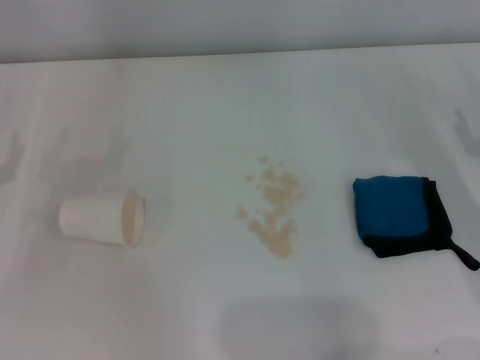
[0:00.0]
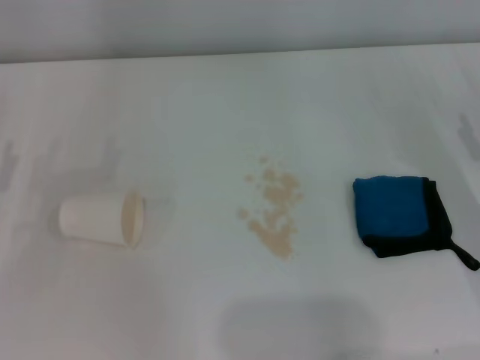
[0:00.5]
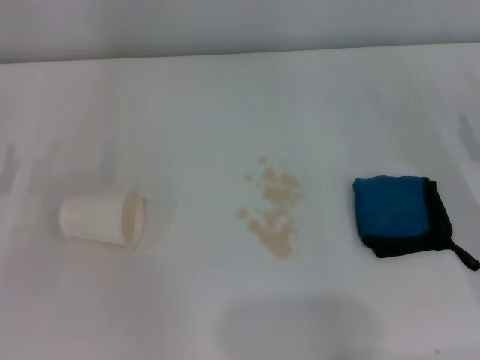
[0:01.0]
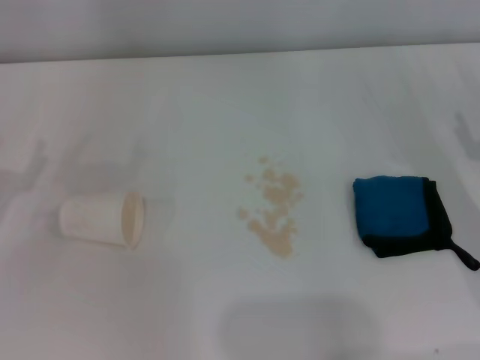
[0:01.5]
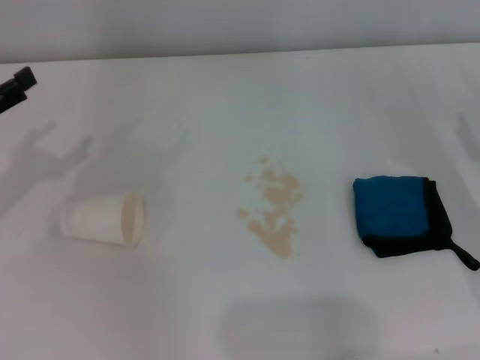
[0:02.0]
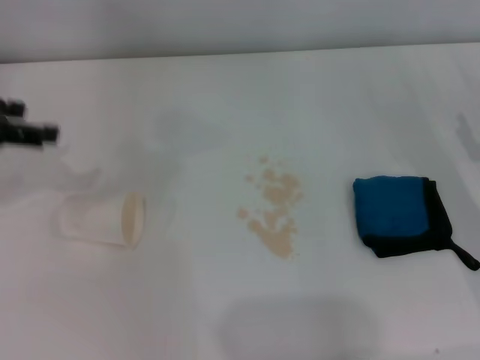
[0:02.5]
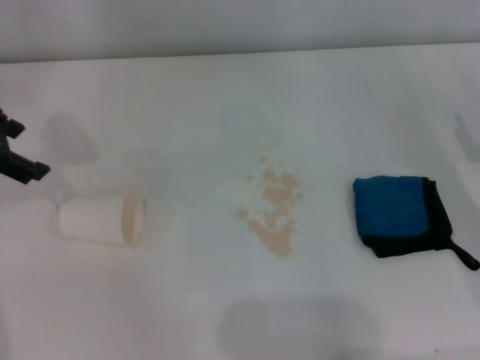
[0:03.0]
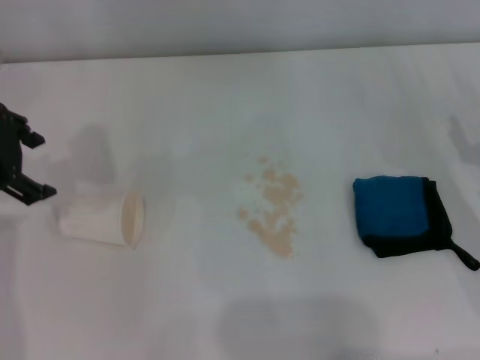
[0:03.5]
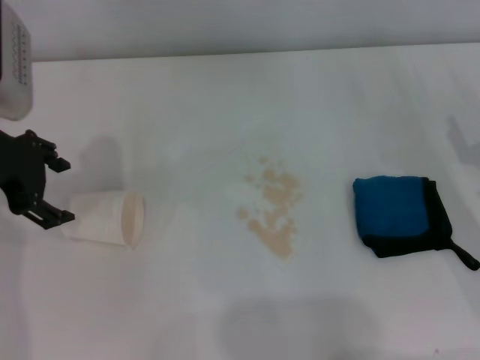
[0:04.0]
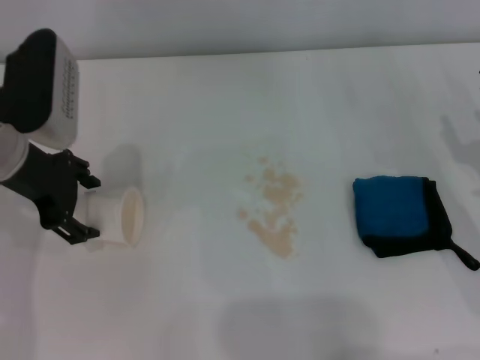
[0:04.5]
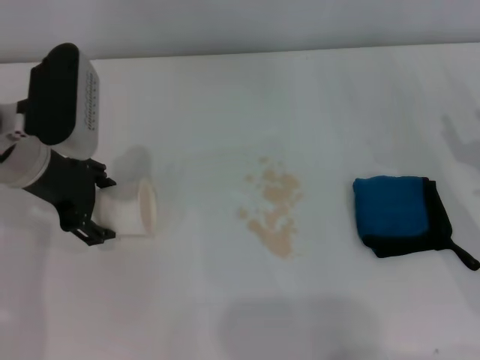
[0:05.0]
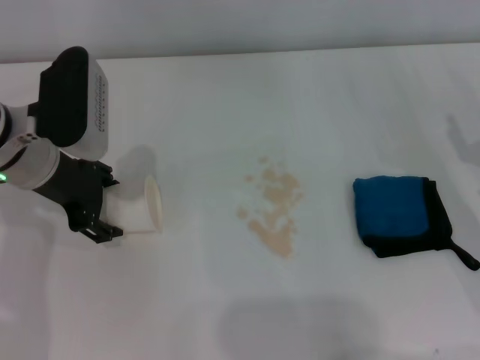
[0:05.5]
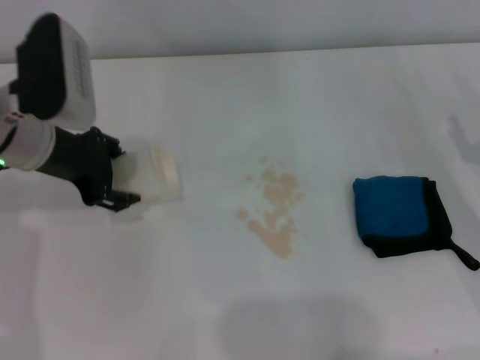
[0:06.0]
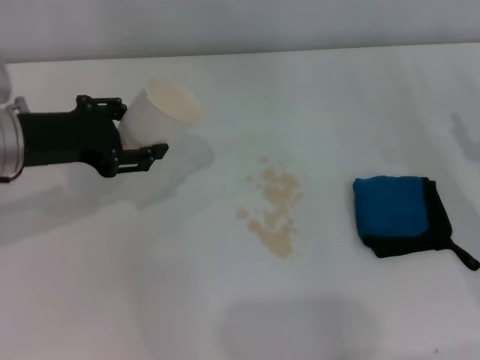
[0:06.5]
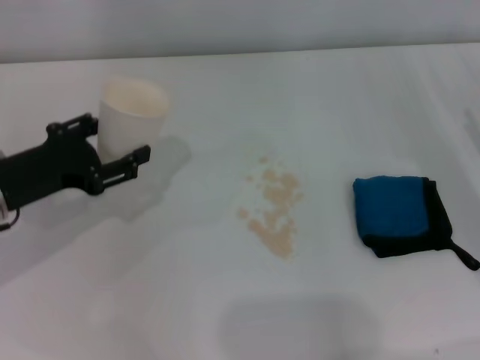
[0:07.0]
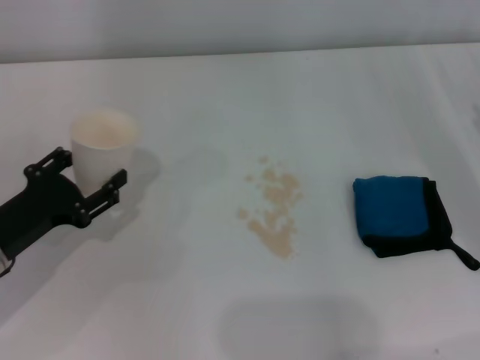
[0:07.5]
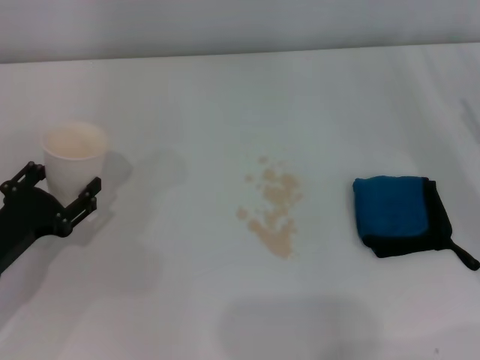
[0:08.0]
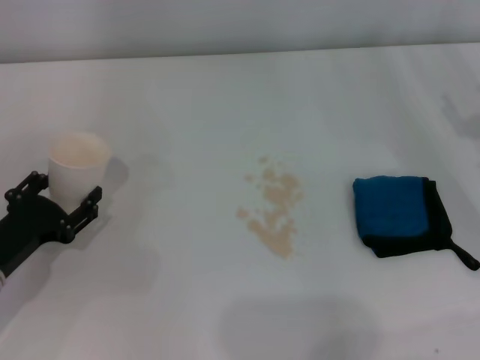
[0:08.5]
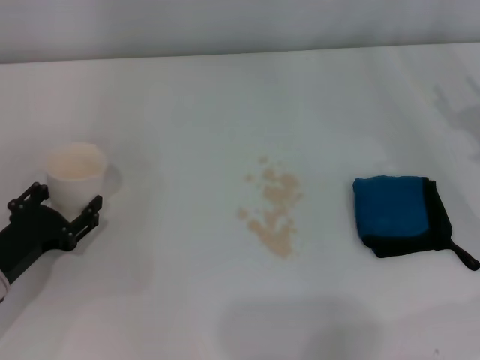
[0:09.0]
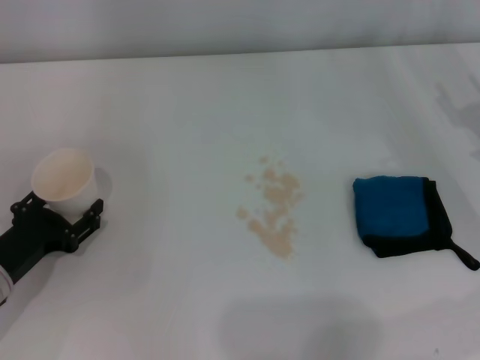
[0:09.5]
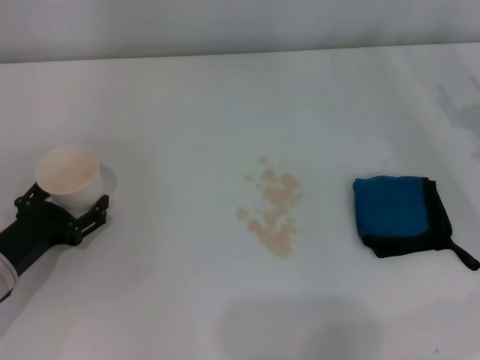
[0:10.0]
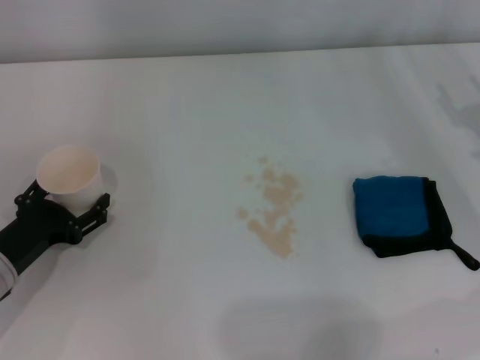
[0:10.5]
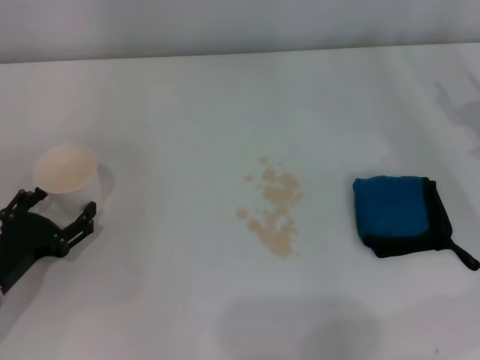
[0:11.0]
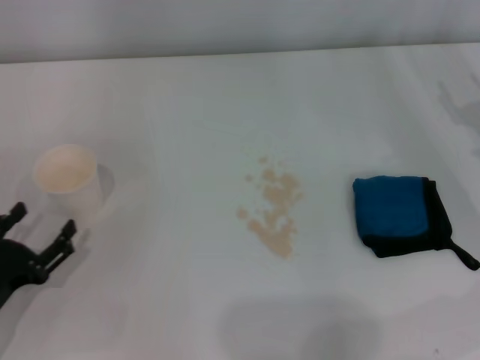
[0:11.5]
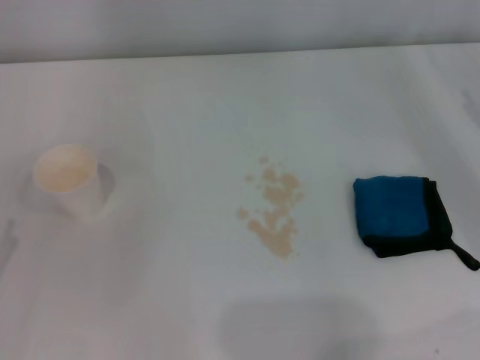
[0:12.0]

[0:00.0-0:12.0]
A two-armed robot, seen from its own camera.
Step, 0.0 to 5.0 s: Grasp the paper cup with the left gripper.
Step, 5.5 to 10.0 s: Stand the paper cup upright with the left gripper.
2.0 to 4.0 s: The left gripper moves to the right and upward, roughly 10 cm.
4.0 to 6.0 s: The left gripper ends up approximately 5 cm from where it was, and closes up.
6.0 to 8.0 s: The left gripper heads downward, backward and to the left, covering about 20 cm.
8.0 to 10.0 s: The grippers stay close to where they were, moving slightly.
10.0 to 12.0 s: The left gripper moves backward and to the left, approximately 10 cm, and opens its fingers.

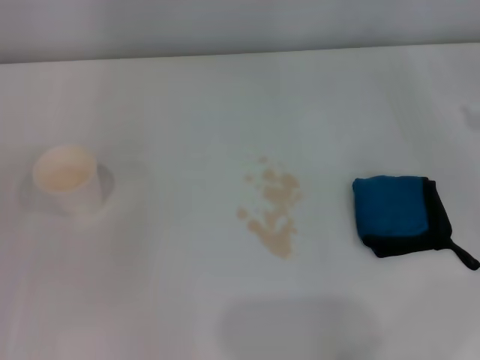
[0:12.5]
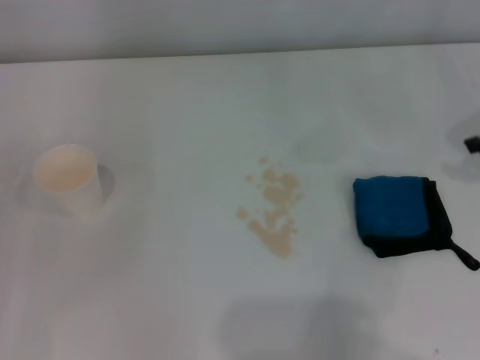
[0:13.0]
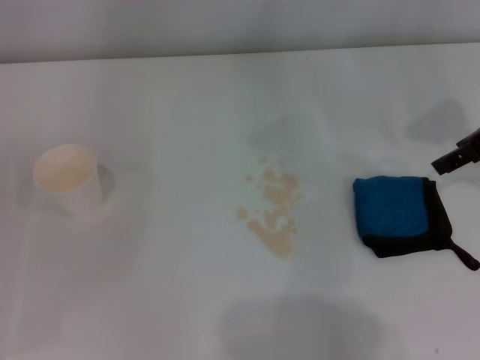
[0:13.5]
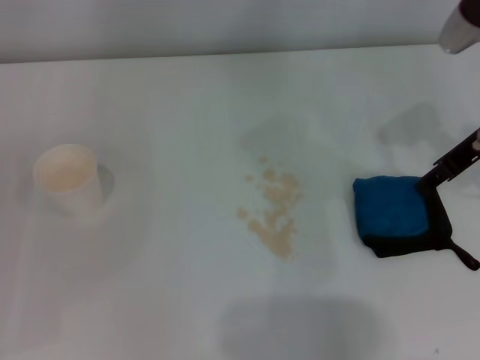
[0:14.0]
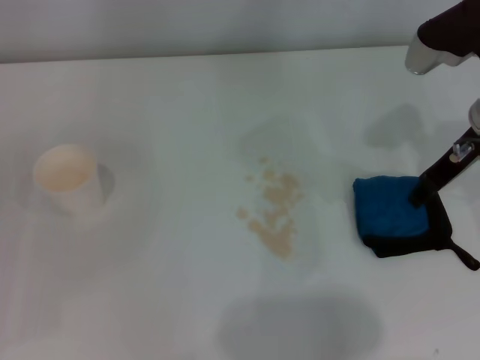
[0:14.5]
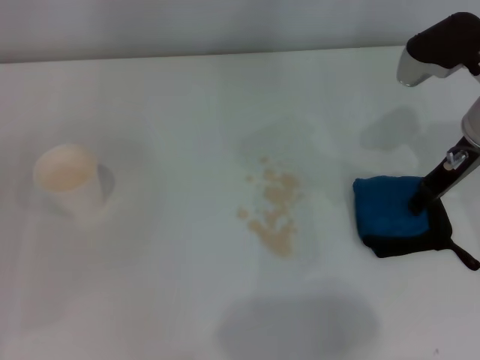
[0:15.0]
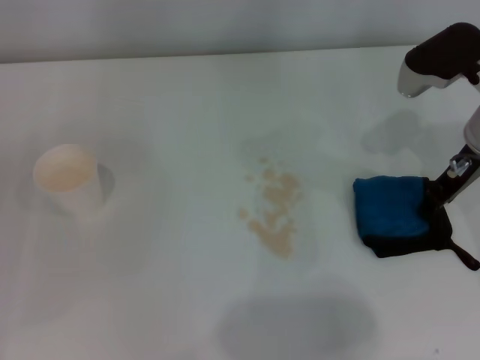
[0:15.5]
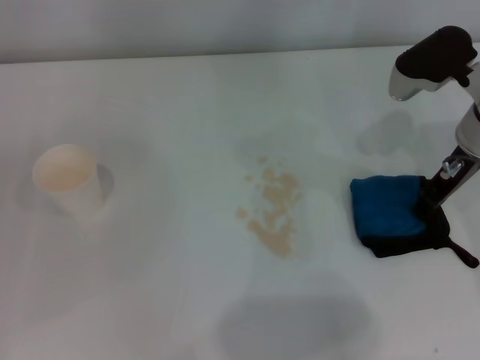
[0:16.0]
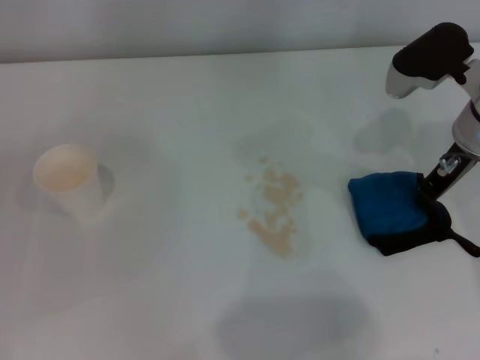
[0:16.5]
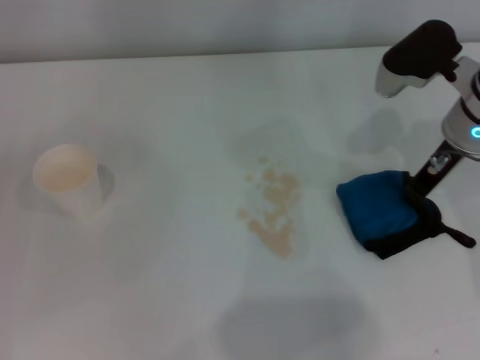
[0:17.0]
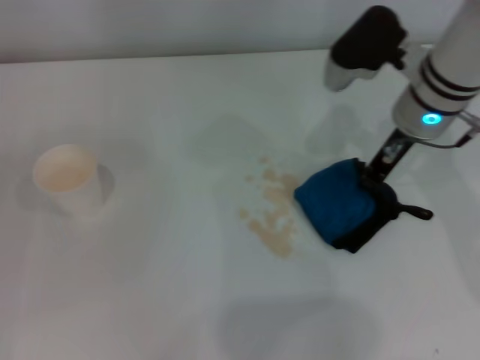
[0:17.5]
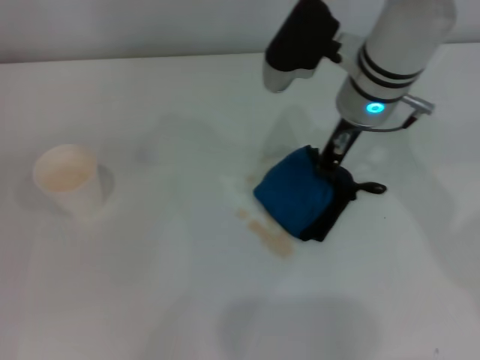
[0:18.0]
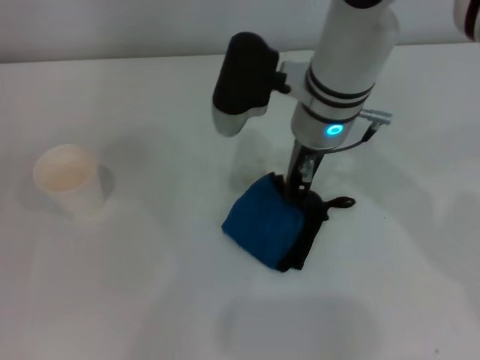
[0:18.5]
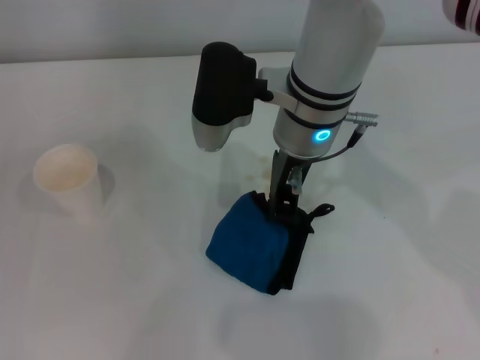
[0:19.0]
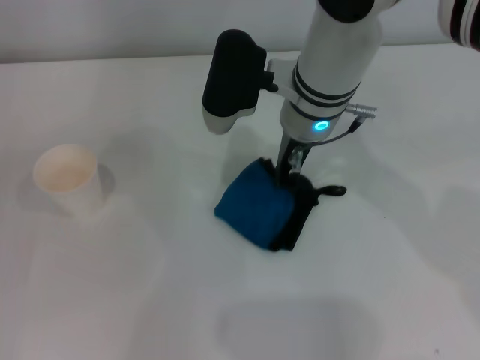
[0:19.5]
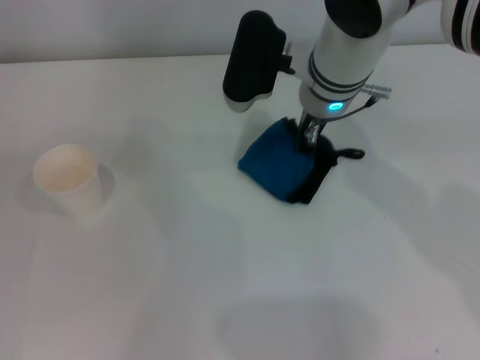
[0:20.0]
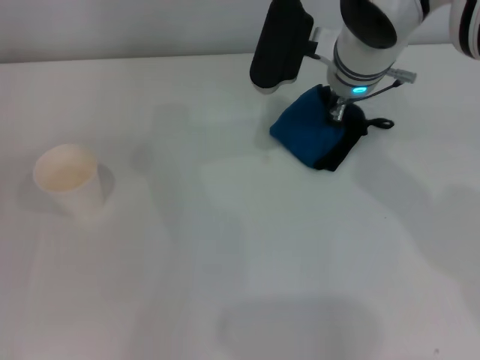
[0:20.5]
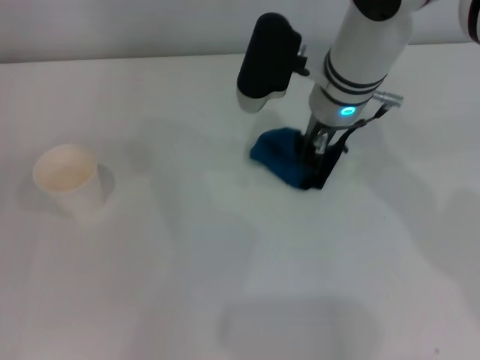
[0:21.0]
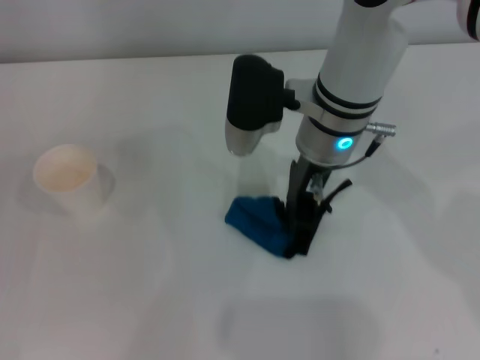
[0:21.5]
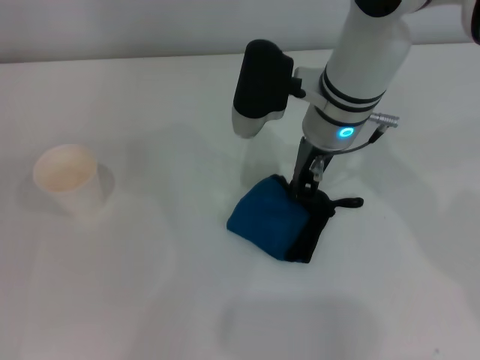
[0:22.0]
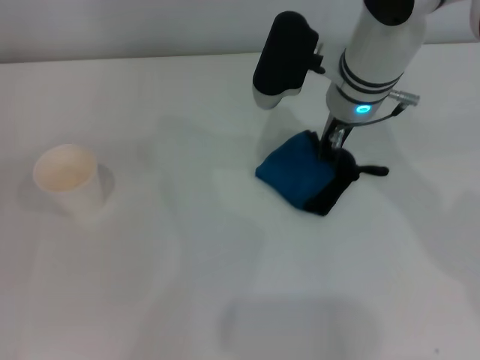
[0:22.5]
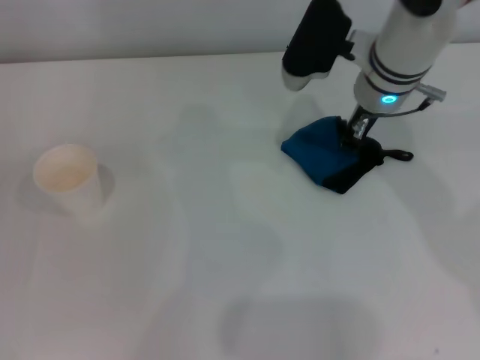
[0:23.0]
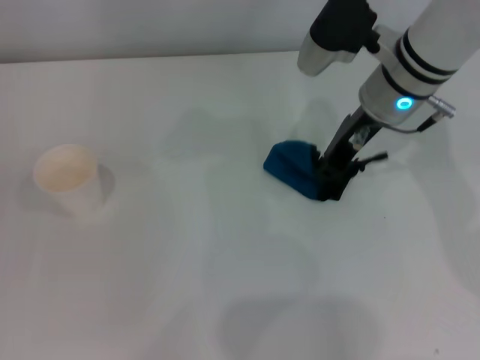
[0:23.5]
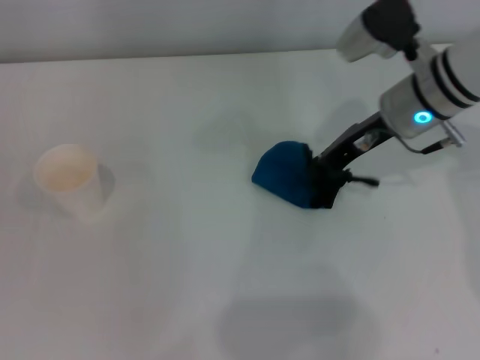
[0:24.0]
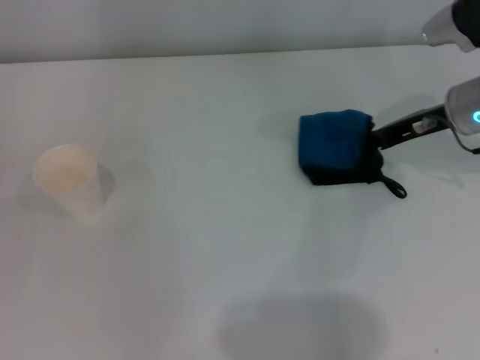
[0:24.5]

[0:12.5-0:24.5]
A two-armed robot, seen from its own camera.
Step, 12.5 to 16.5 s: Grasp the rag with the right gripper.
Step, 17.0 to 22.5 s: Wipe the stains off the table with the right gripper.
12.5 to 14.5 s: The right gripper shifts approximately 15 cm to the left.
14.5 to 16.5 s: The right gripper closes its fingers.
16.5 to 18.5 s: The right gripper heads to the left, covering approximately 15 cm.
18.5 to 20.5 s: The right gripper shifts some 5 cm forward.
22.5 to 24.5 s: The right gripper heads to the right, covering roughly 15 cm.

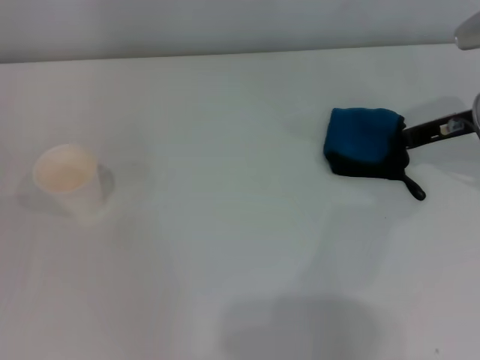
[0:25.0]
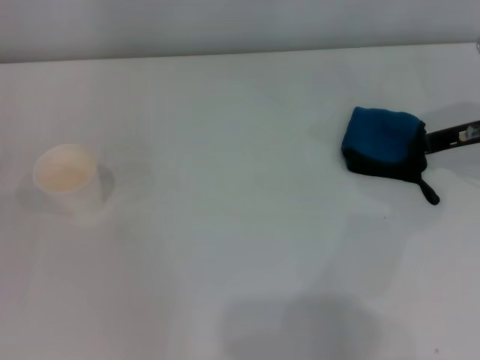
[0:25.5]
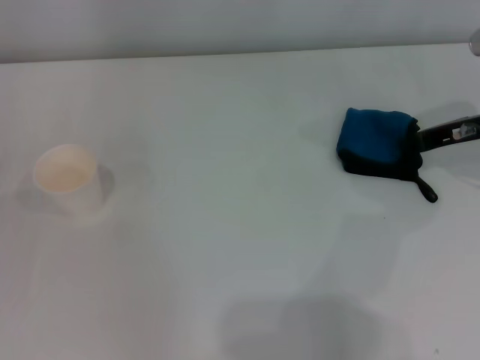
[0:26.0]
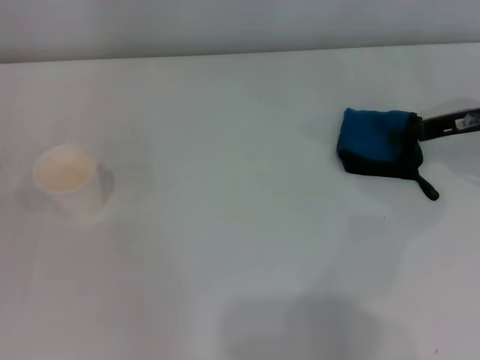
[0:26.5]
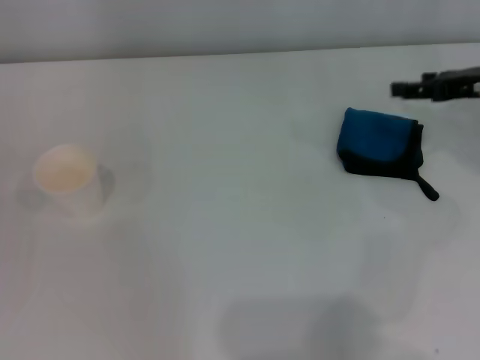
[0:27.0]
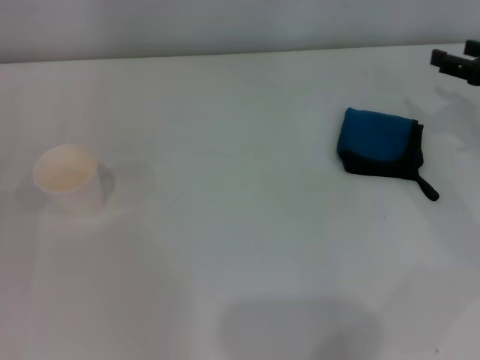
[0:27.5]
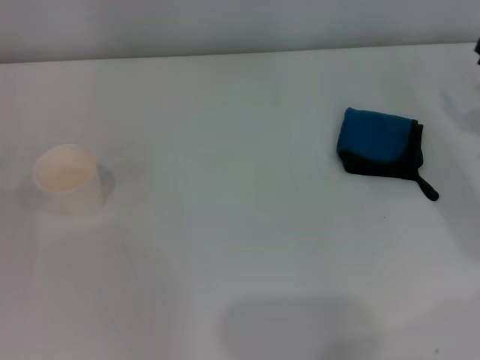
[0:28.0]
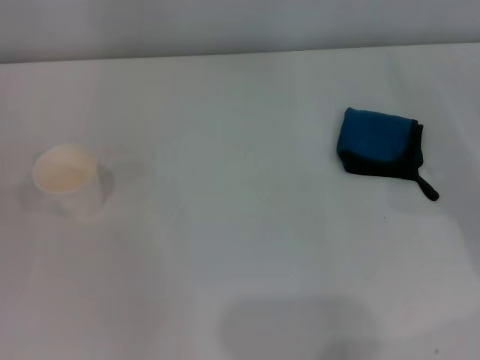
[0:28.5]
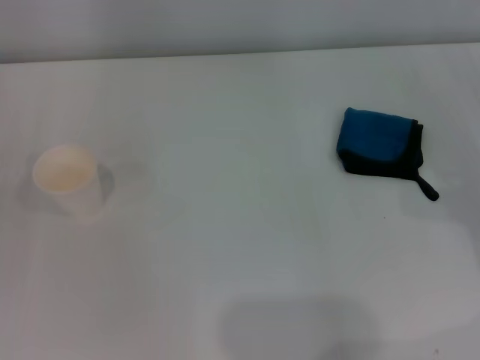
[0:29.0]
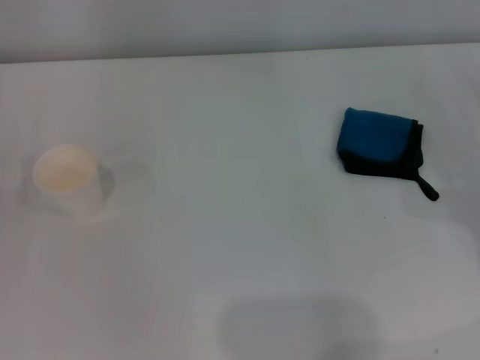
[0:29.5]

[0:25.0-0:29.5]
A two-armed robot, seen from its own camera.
25.0 to 27.0 s: The right gripper opens.
27.0 to 29.5 s: The right gripper goes some 15 cm downward, backward and to the right.
